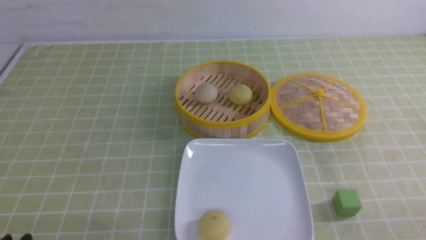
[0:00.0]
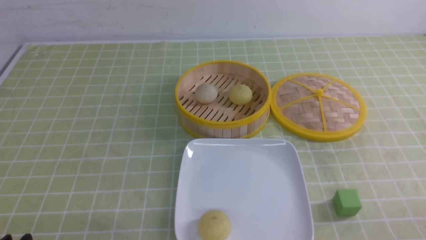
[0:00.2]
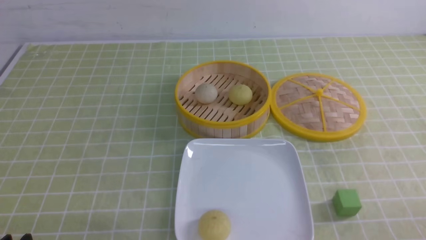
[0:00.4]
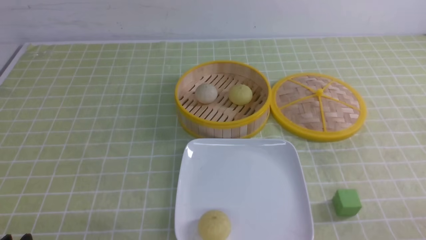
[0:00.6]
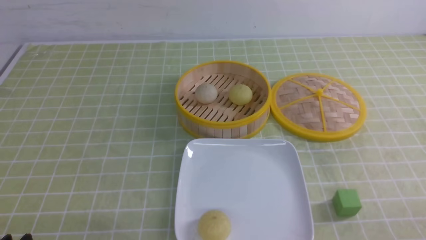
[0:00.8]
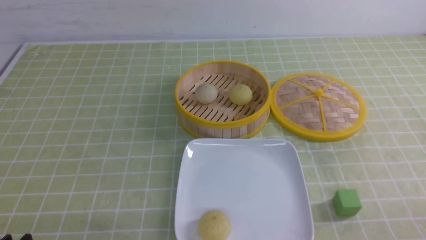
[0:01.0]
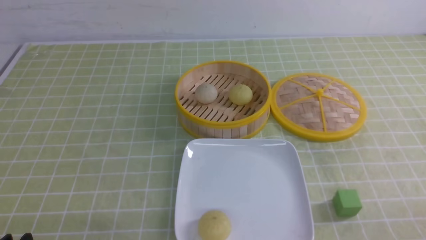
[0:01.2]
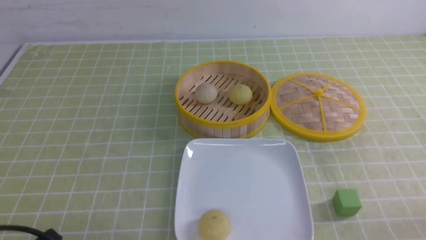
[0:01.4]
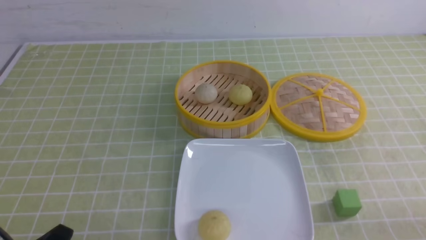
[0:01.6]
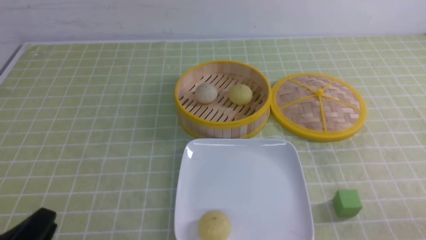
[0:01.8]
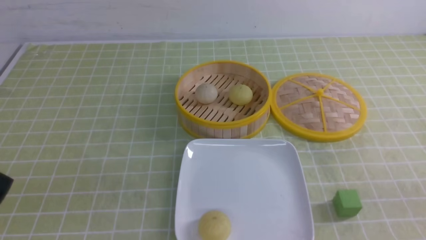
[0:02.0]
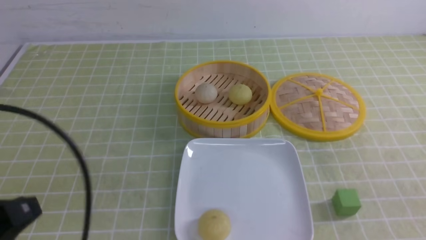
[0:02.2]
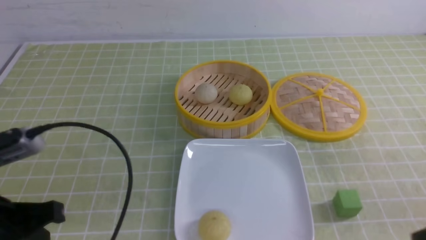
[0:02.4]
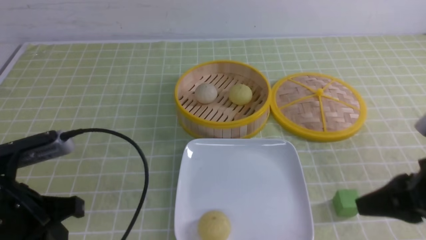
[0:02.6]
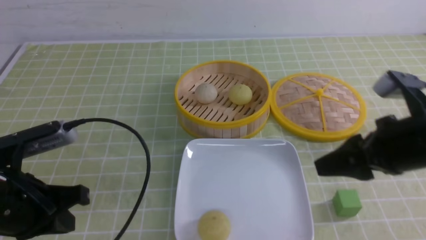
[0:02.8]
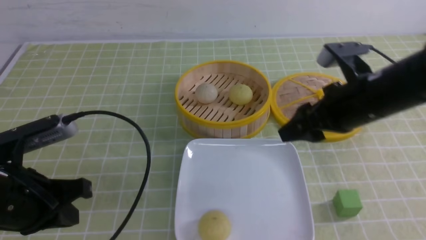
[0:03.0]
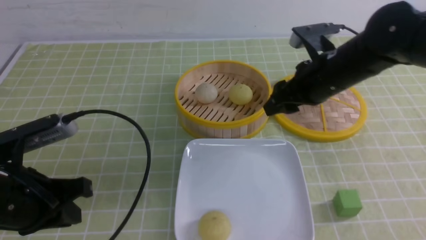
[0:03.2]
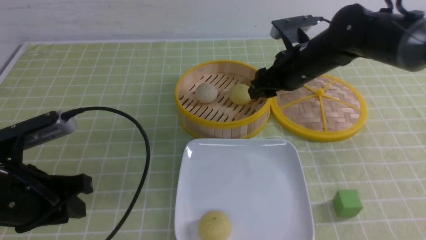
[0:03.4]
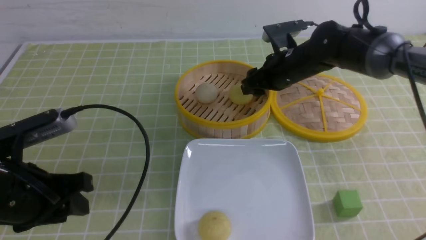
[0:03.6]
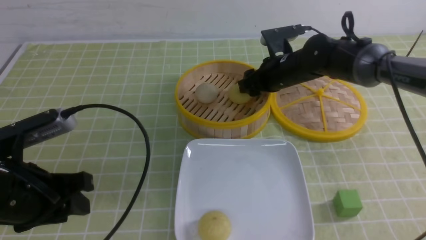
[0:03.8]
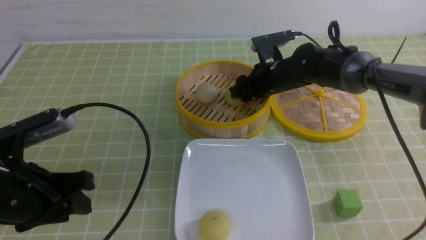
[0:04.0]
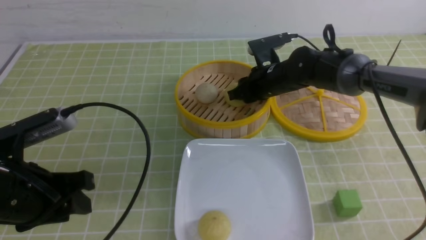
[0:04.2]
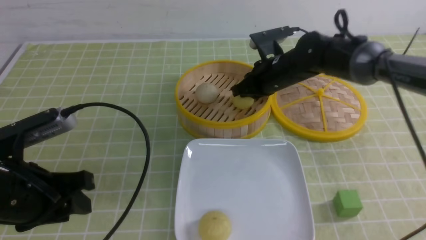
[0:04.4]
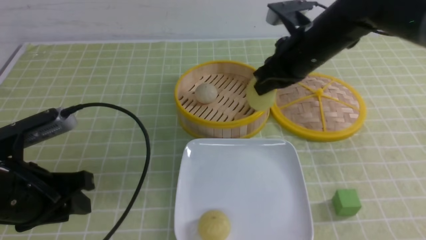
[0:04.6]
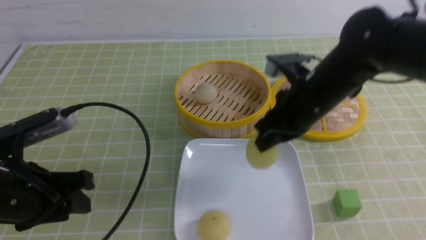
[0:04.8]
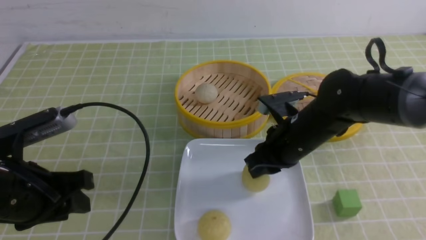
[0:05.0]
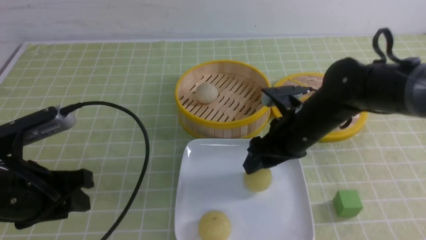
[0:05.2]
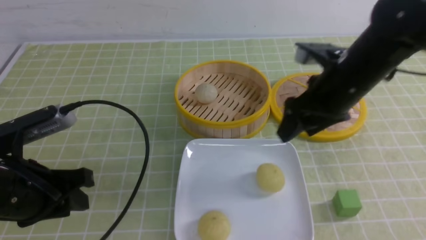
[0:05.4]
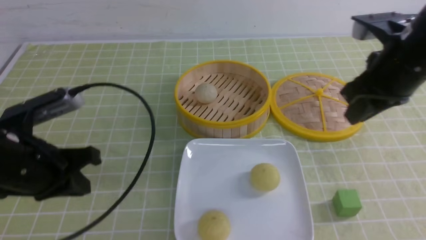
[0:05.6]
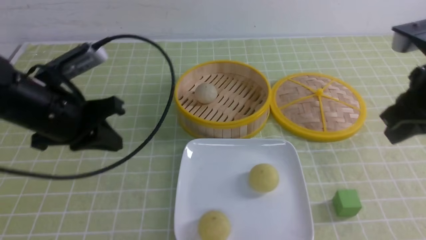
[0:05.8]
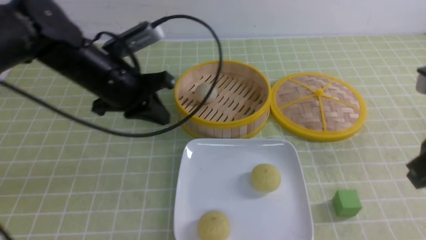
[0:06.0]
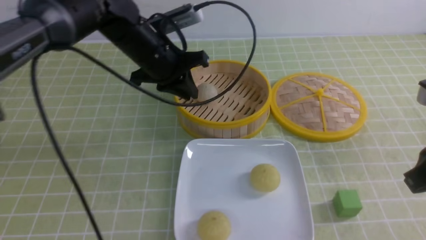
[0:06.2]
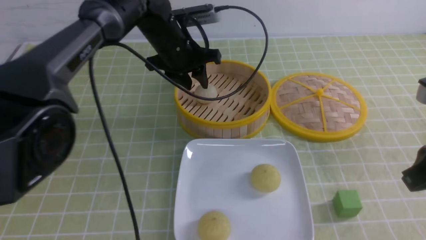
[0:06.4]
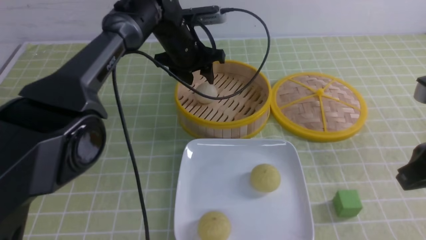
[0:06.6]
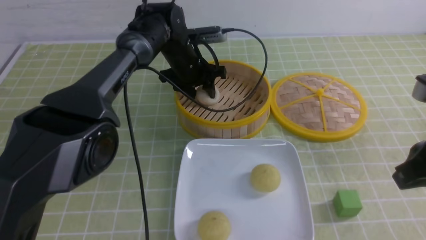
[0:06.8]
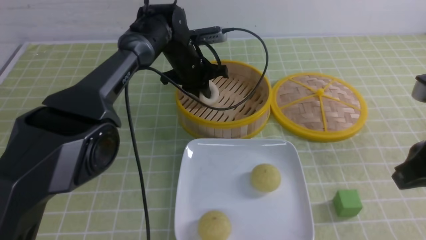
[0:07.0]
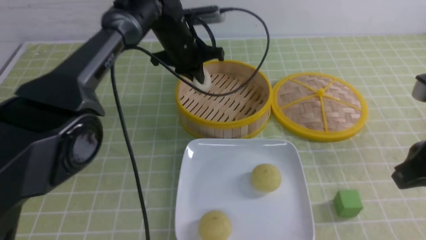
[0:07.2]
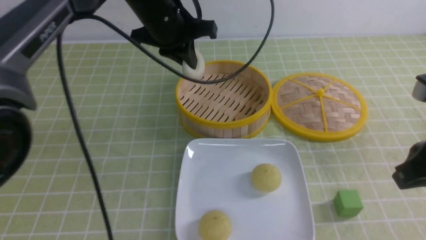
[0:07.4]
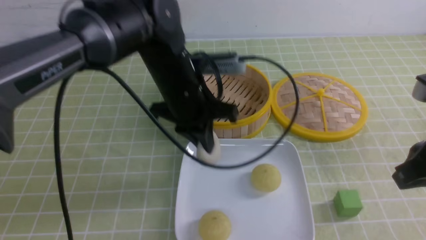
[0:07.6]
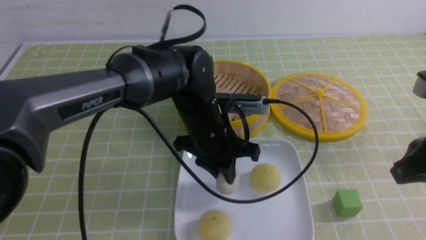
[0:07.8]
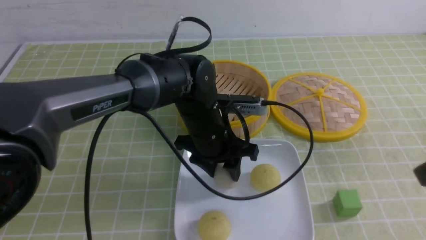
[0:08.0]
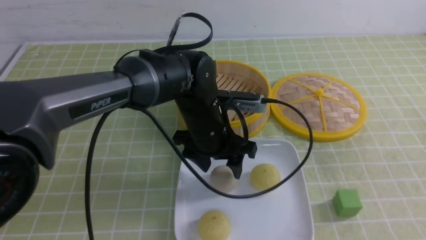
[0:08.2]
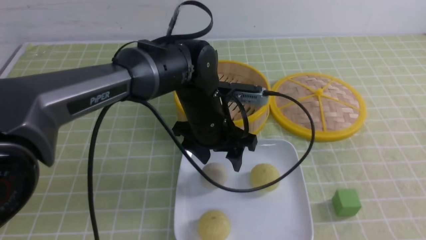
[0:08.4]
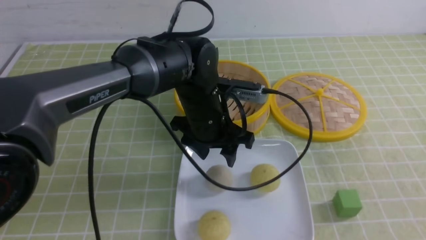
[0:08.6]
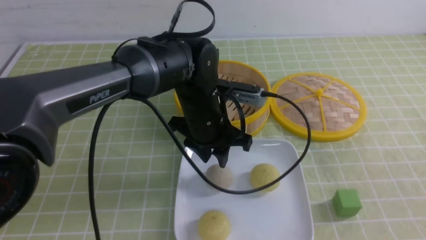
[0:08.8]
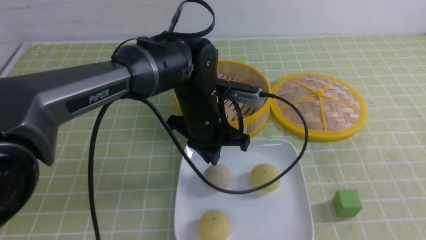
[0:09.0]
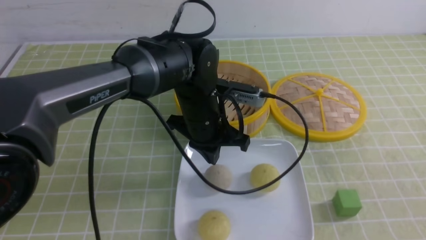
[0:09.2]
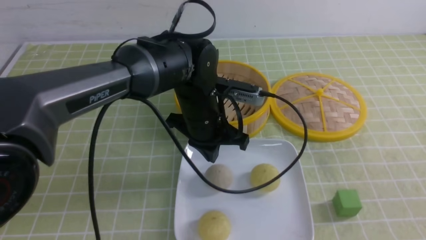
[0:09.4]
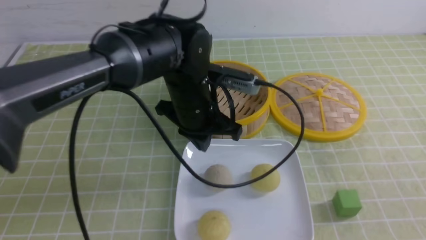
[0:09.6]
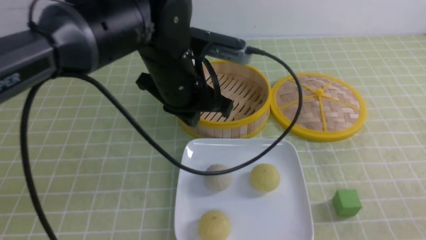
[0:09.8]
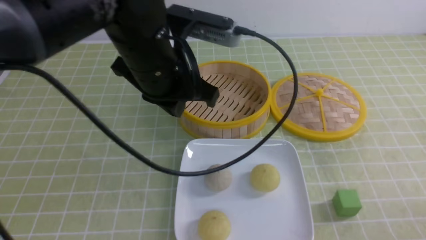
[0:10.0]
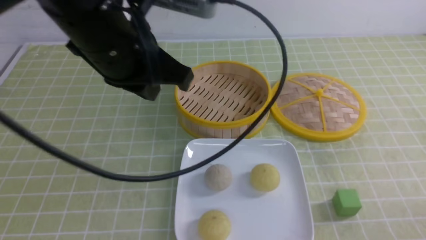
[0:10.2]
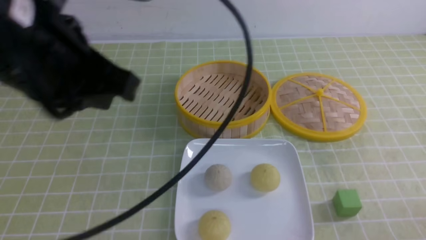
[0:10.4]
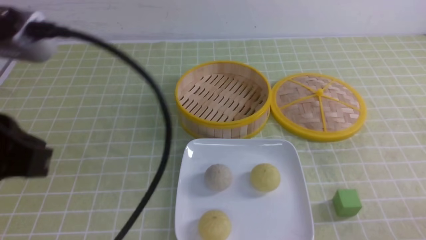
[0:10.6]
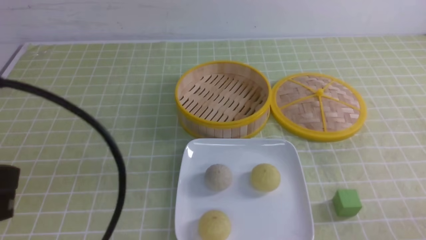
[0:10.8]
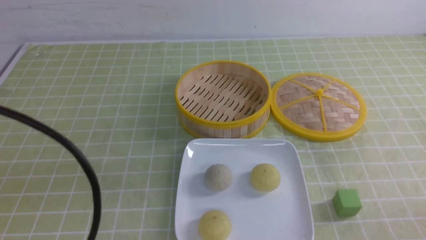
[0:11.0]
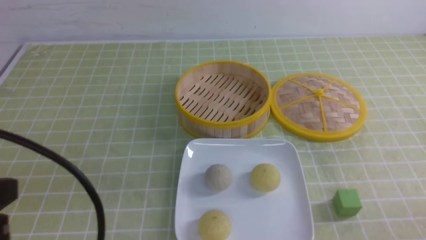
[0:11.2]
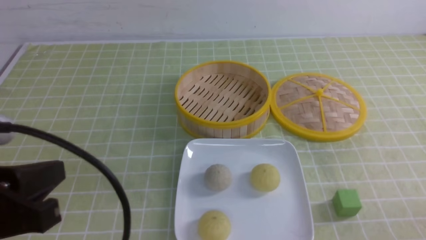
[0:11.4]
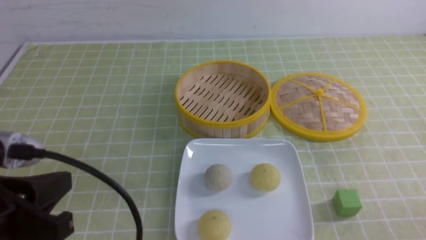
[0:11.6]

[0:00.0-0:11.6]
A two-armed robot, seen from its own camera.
Step, 0:00.0 to 0:04.0: use the right arm to grab the steamed stuffed bun that is closest to it.
Step, 0:04.4 to 0:05.2: use the right arm to put the steamed stuffed bun into the plate.
Step, 0:05.4 to 0:07.0: use the left arm to grab the steamed stuffed bun that is closest to it.
Step, 0:07.2 to 0:08.2: use the left arm to put the steamed stuffed bun into the plate.
0:01.4 to 0:02.8: The left gripper shifts roughly 15 cm forward and upward, and closes its fingers. The right gripper shifts some 25 cm forward, upward and to the left, and closes, then opens again.
0:02.8 to 0:04.4: The right gripper is displaced forward and to the left by approximately 25 cm, and closes. Meanwhile the left gripper opens.
0:04.4 to 0:05.8: The left gripper moves forward, some 10 cm, and closes its fingers; the right gripper goes about 25 cm backward, to the right and upward, and opens, then closes once more.
0:05.8 to 0:07.2: The right gripper shifts by some 5 cm. The left gripper heads forward and to the right, covering approximately 20 cm, and opens and closes again.
0:07.2 to 0:08.8: The right gripper travels backward by some 15 cm; the left gripper moves backward and downward, about 15 cm, and opens up.
0:08.8 to 0:10.2: The right gripper is displaced downward by roughly 10 cm, while the left gripper moves upward, backward and to the left, roughly 25 cm, and closes.
0:10.2 to 0:11.6: The left gripper heads backward, to the left and downward, covering some 20 cm.

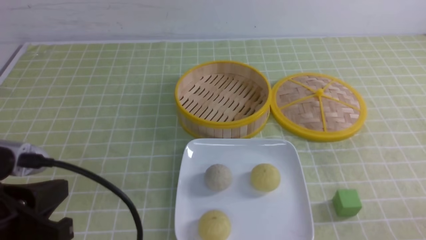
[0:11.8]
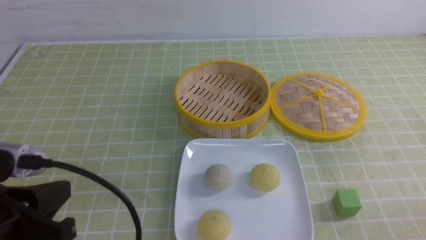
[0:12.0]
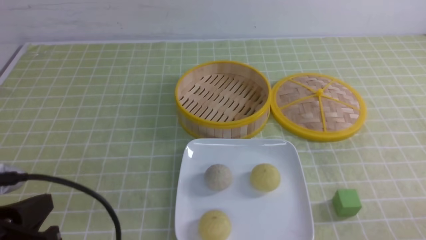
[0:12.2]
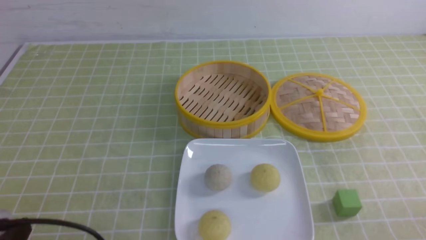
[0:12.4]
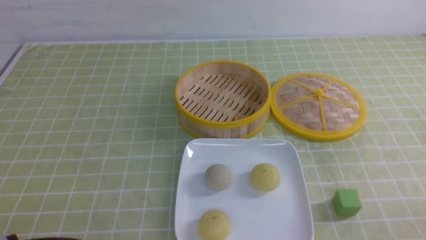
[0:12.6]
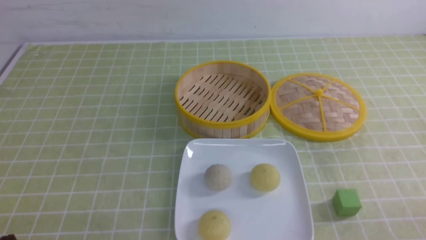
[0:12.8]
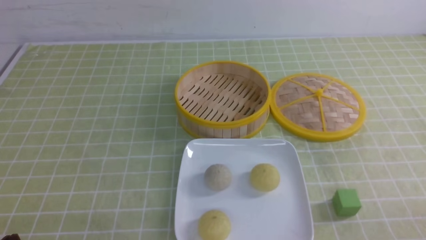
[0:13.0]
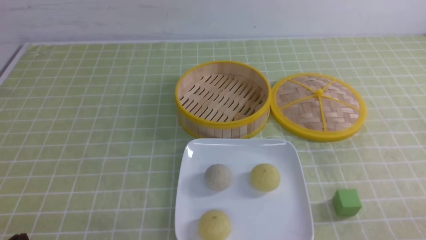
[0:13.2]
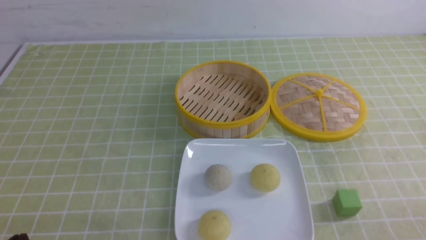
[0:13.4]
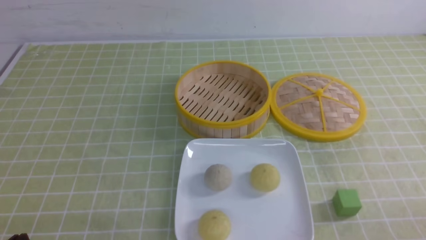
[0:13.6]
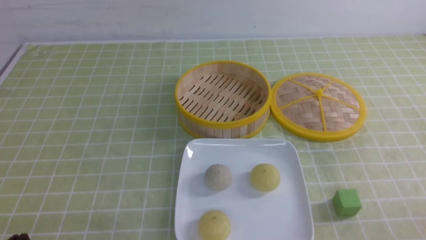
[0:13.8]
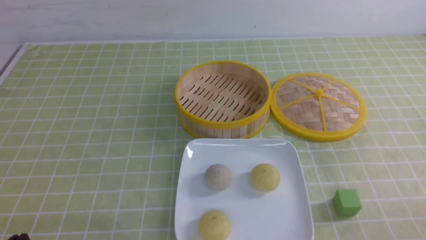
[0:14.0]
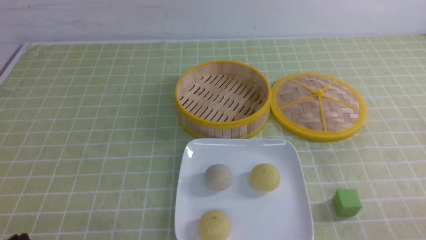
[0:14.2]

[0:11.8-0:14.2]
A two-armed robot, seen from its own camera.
0:11.8 to 0:13.0: The left gripper travels downward by roughly 10 cm.
0:13.0 to 0:14.2: Both grippers stay put.
